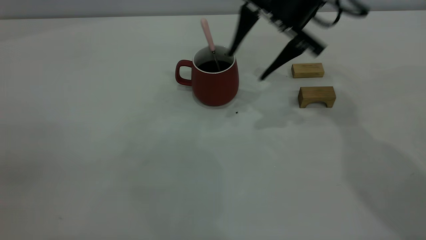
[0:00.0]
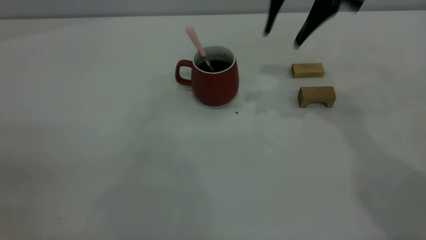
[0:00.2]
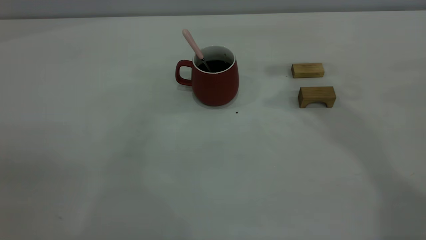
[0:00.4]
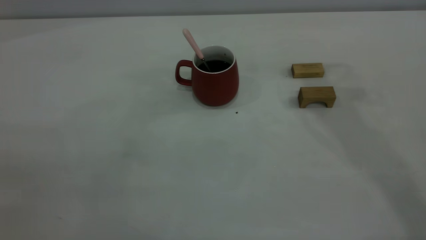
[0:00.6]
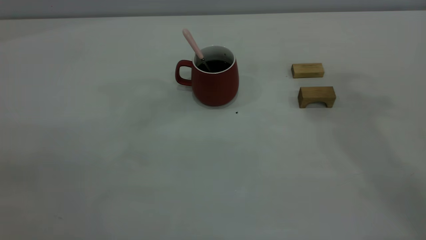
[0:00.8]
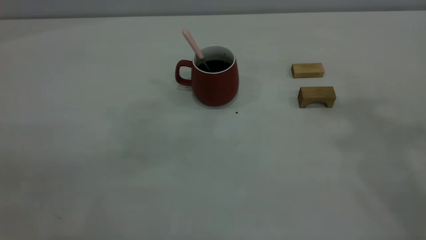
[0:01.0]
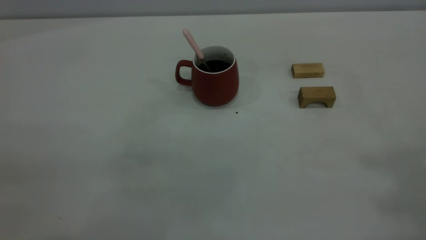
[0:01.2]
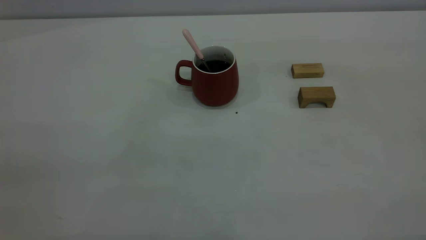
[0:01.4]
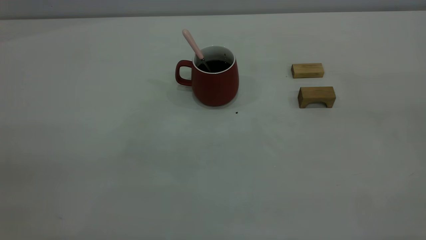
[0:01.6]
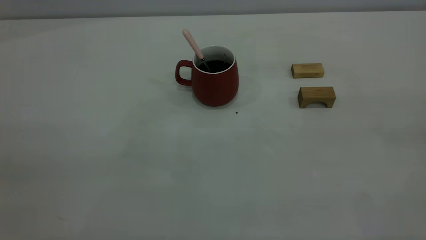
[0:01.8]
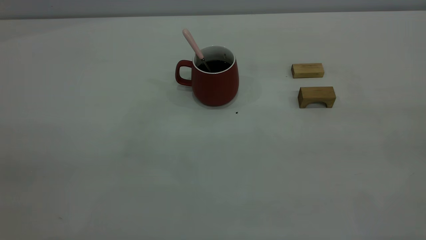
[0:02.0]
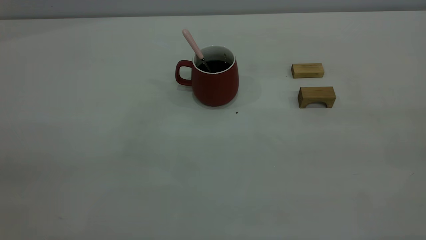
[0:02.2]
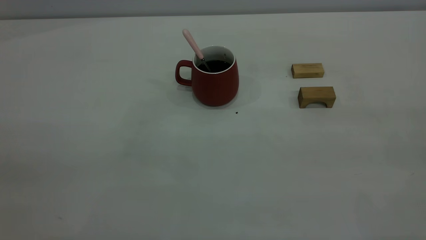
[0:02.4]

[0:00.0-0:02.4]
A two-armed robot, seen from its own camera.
0:00.0 to 0:01.2: The right gripper travels upward, backward and to the right by some 40 cm, and closes its fingers.
